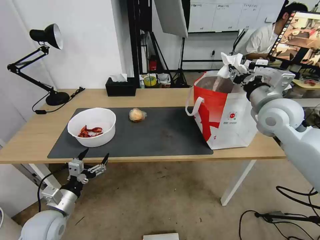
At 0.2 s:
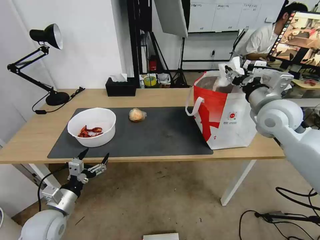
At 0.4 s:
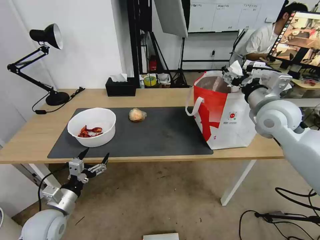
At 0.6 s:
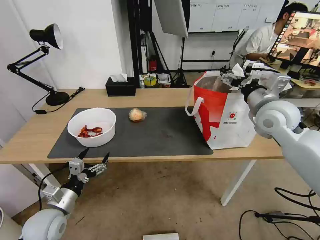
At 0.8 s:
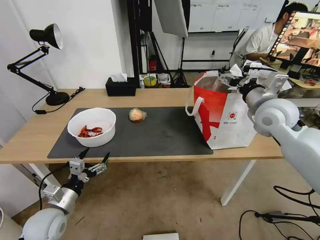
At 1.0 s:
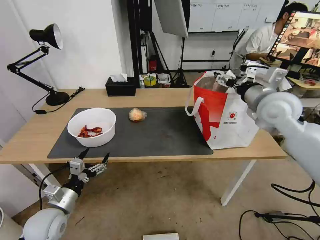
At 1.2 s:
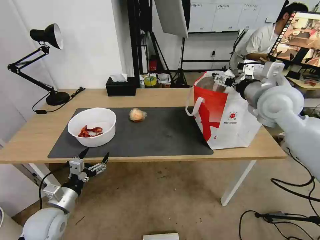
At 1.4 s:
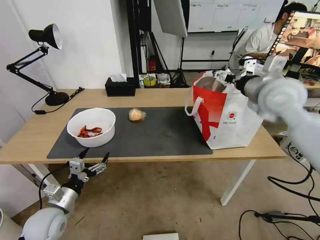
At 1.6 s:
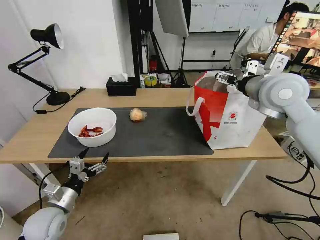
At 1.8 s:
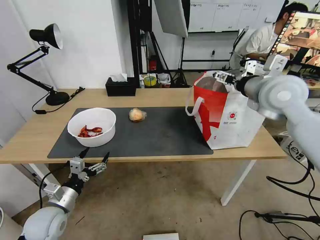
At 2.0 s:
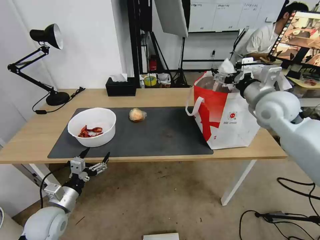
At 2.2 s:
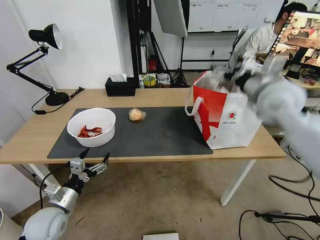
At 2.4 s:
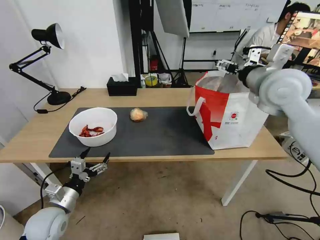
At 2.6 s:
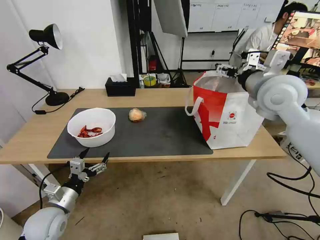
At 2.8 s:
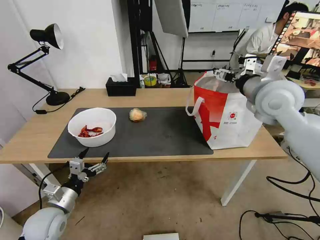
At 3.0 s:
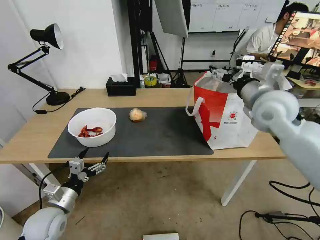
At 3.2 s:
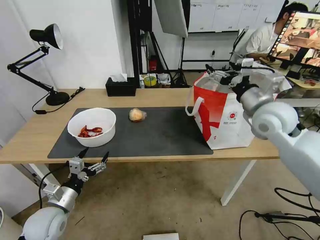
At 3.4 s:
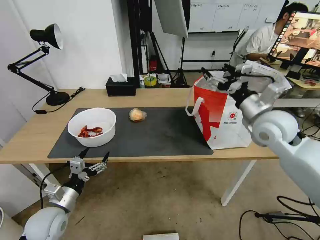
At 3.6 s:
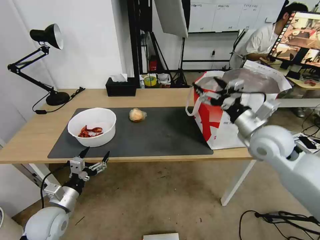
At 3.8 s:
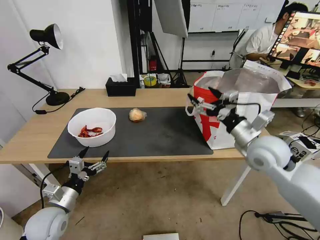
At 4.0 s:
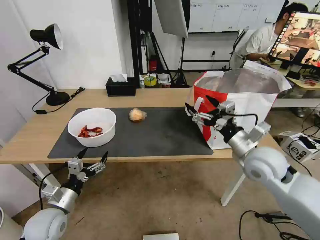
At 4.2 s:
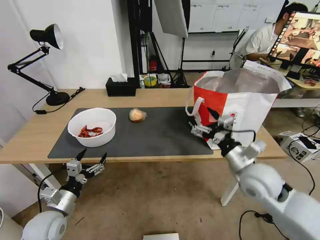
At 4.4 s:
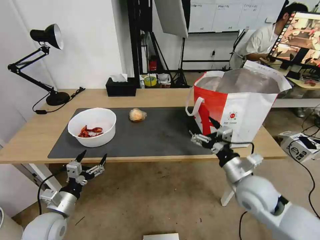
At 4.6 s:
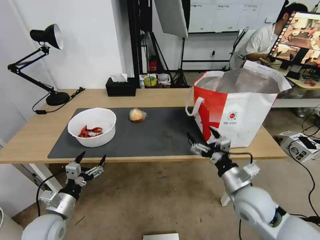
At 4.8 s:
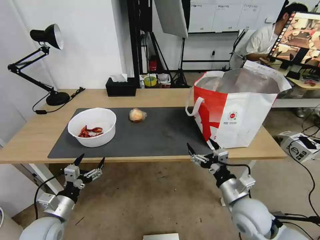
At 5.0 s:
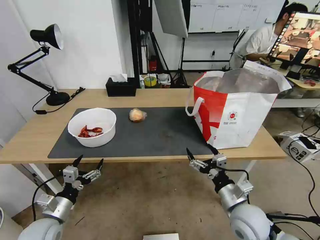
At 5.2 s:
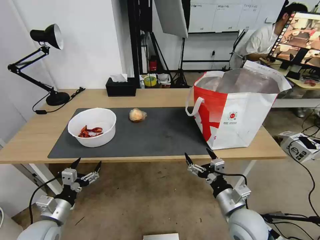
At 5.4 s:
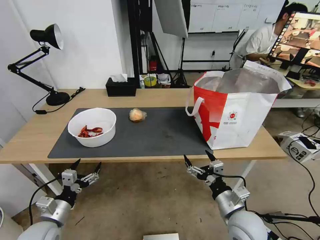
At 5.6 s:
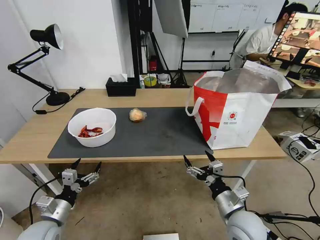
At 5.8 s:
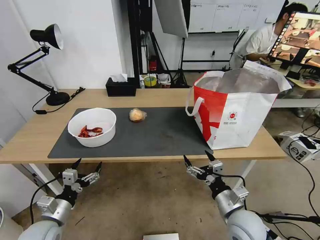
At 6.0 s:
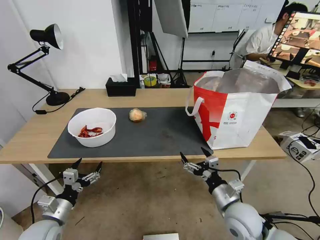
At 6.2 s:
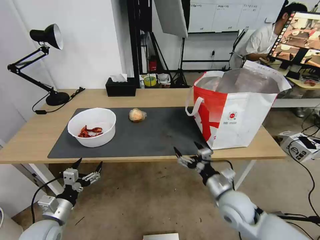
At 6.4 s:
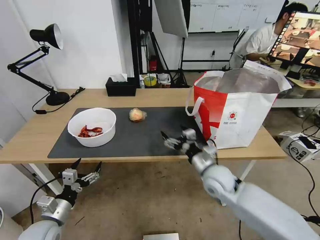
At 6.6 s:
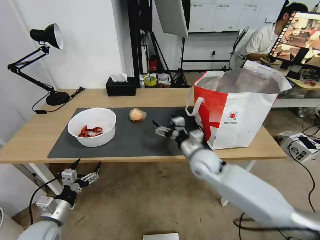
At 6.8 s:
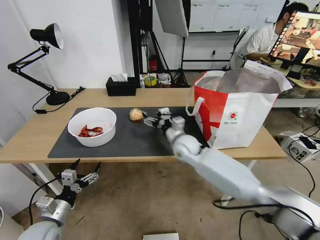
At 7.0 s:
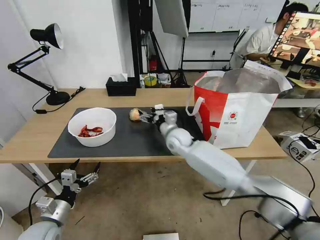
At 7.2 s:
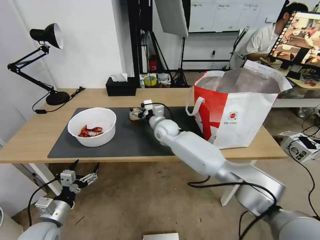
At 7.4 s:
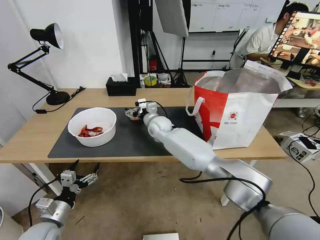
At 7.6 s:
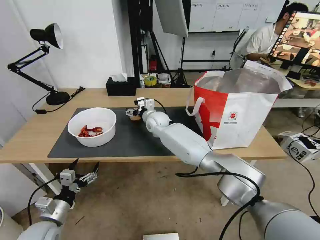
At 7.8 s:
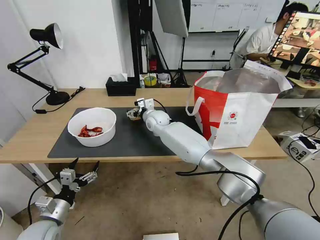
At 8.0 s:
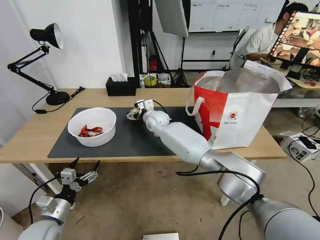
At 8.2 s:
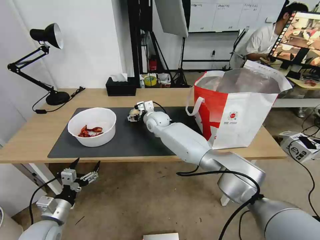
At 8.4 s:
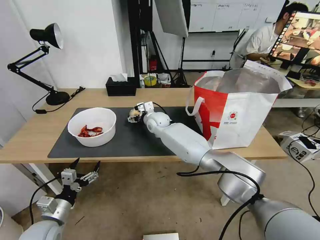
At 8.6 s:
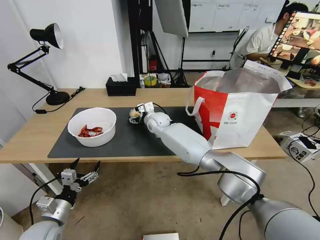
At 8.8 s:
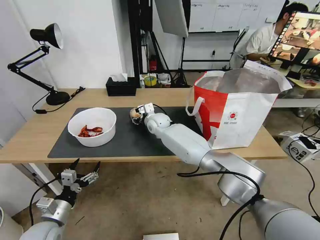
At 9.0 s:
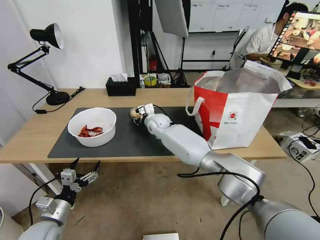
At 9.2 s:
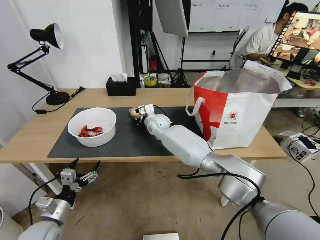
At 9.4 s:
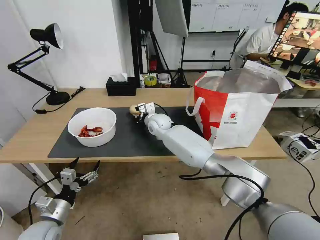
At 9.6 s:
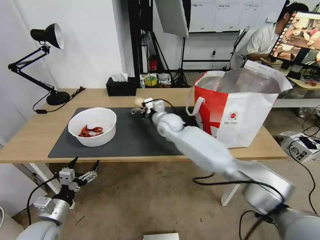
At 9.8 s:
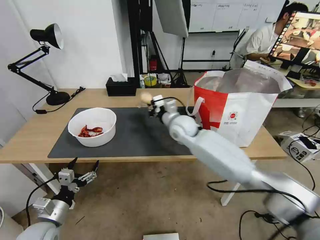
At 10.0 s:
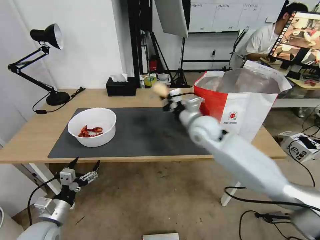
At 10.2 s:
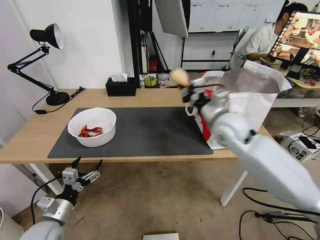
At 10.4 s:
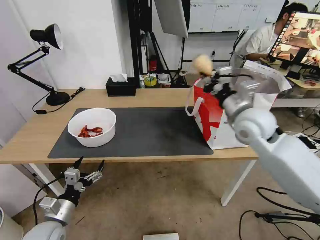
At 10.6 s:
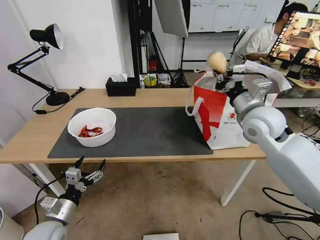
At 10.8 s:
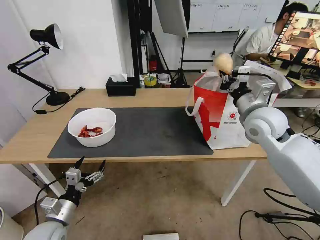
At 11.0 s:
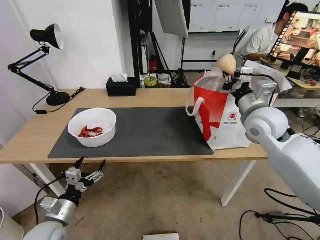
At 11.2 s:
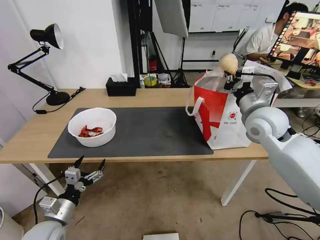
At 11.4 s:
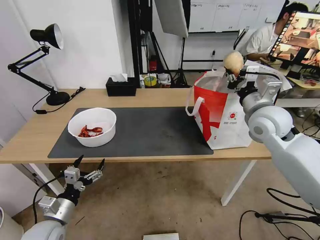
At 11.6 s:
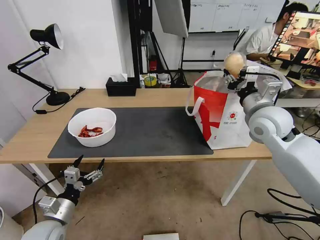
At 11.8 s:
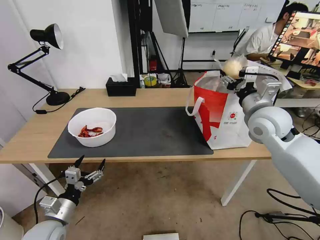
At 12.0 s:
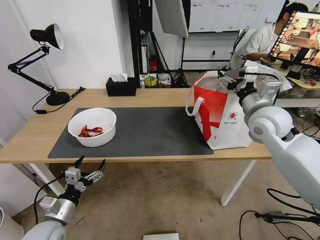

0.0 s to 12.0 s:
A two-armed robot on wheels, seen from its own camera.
Task of the whole recording: Pick up the trash from the table and place it into the takeout bag.
0.0 to 1.6 s: The right gripper goes roughly 5 cm upward, and opens.
1.6 to 3.0 s: The right gripper swings up and down, about 5 cm each way, with 2 reversals.
3.0 to 4.4 s: The right gripper heads downward and backward, covering about 25 cm.
4.4 to 6.0 s: The right gripper is displaced downward and backward by some 10 cm.
6.0 to 7.6 s: The right gripper heads forward and to the left, covering approximately 40 cm.
7.6 to 9.0 s: The right gripper closes up.
9.0 to 10.4 s: The right gripper moves to the right, backward and upward, approximately 35 cm, and closes up.
10.4 to 12.0 s: The right gripper opens.

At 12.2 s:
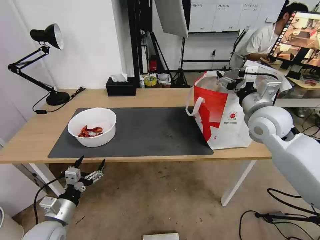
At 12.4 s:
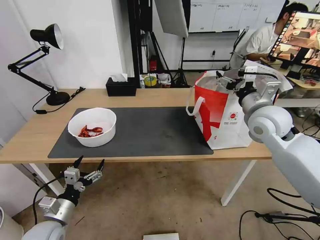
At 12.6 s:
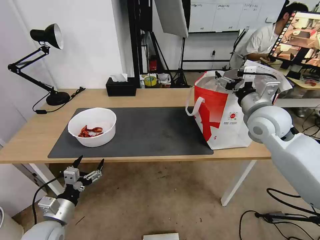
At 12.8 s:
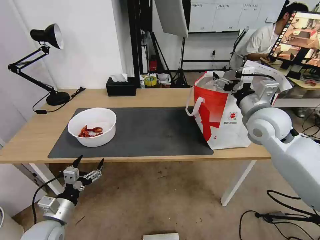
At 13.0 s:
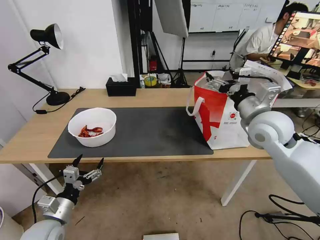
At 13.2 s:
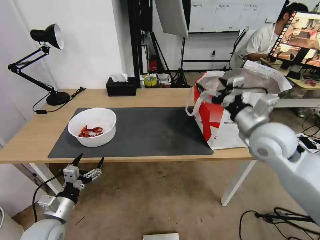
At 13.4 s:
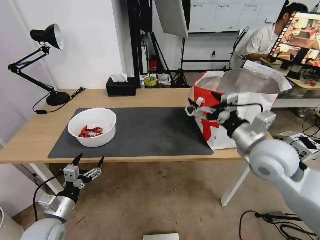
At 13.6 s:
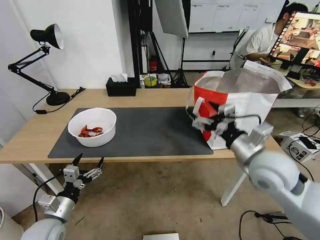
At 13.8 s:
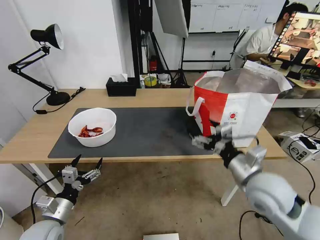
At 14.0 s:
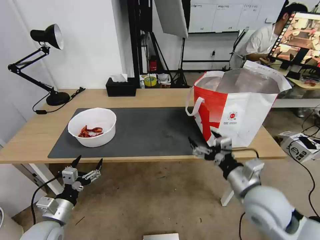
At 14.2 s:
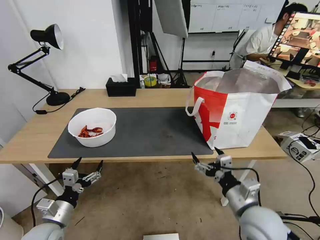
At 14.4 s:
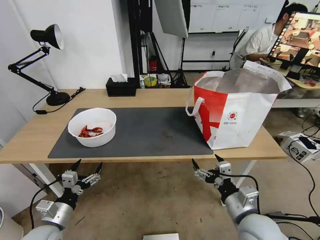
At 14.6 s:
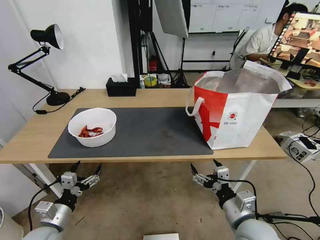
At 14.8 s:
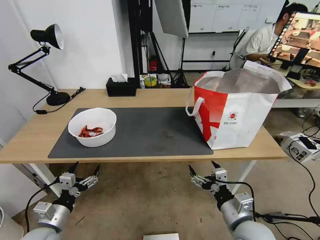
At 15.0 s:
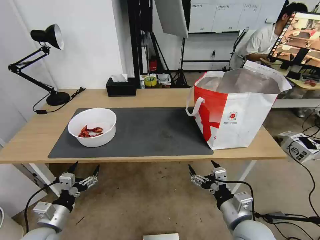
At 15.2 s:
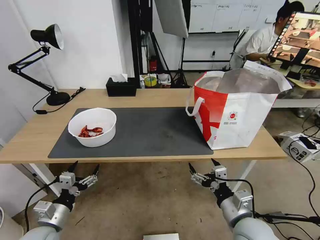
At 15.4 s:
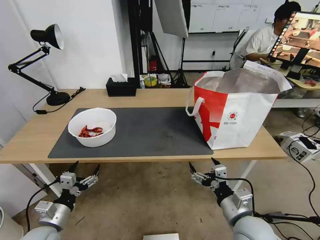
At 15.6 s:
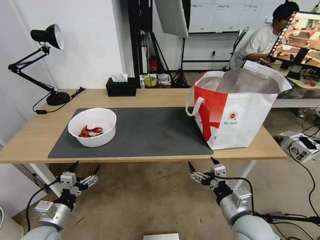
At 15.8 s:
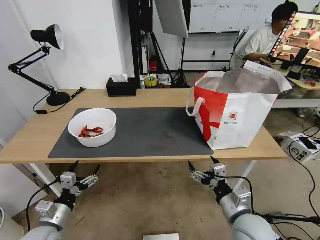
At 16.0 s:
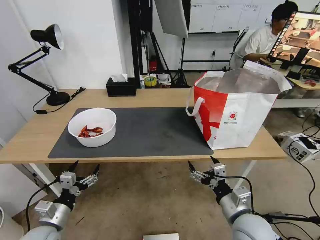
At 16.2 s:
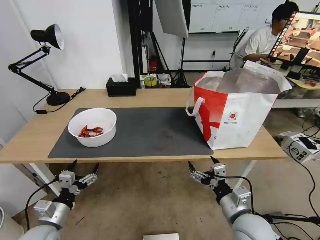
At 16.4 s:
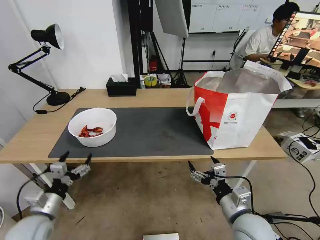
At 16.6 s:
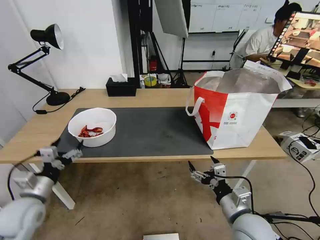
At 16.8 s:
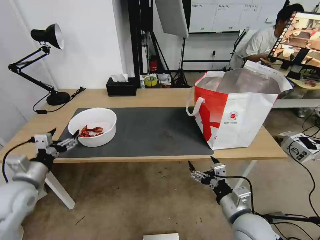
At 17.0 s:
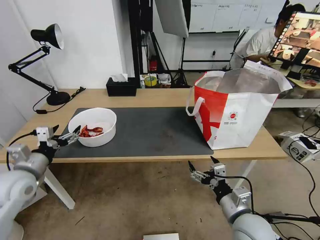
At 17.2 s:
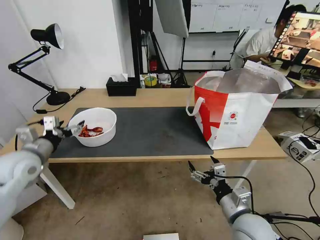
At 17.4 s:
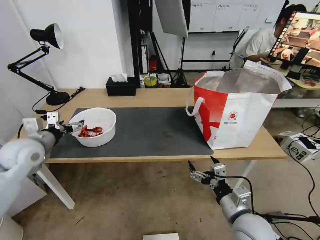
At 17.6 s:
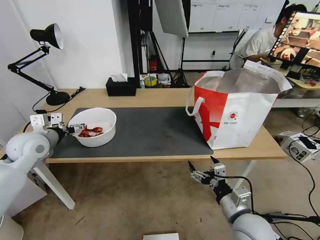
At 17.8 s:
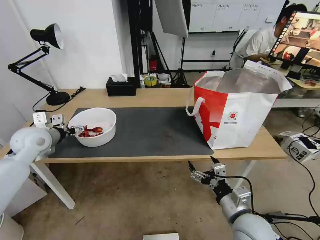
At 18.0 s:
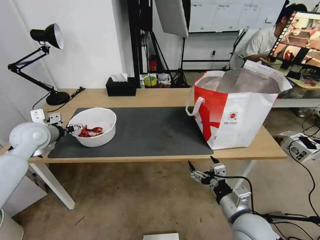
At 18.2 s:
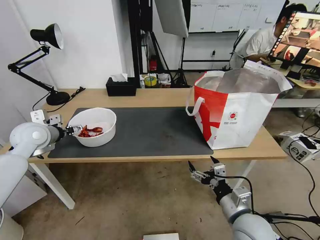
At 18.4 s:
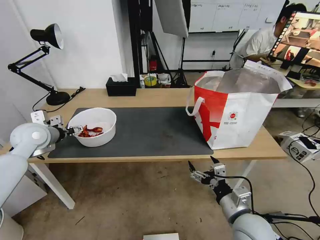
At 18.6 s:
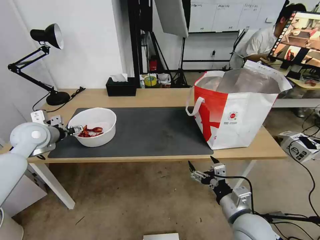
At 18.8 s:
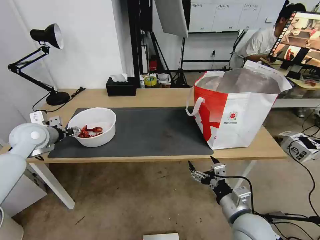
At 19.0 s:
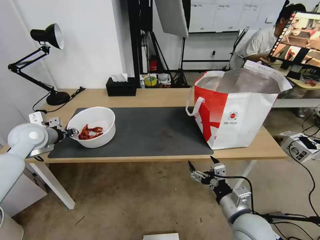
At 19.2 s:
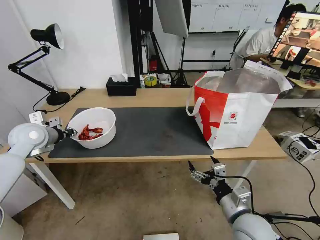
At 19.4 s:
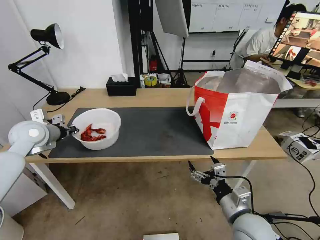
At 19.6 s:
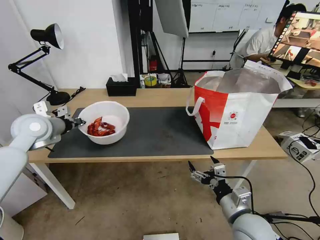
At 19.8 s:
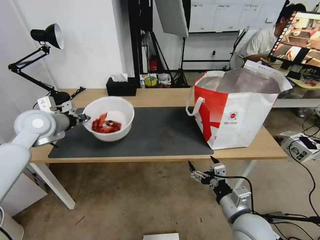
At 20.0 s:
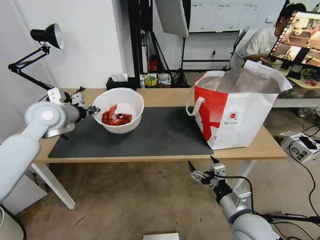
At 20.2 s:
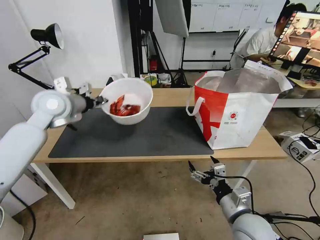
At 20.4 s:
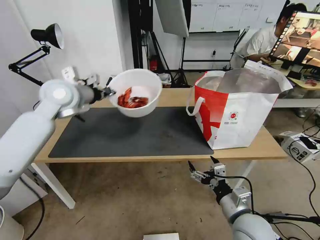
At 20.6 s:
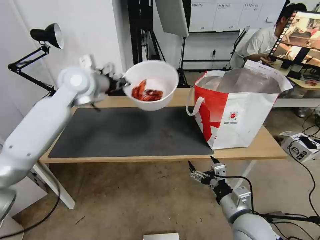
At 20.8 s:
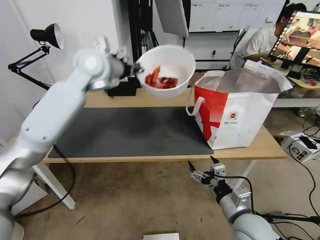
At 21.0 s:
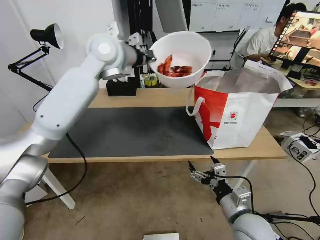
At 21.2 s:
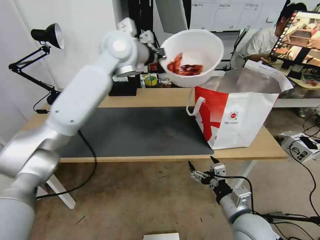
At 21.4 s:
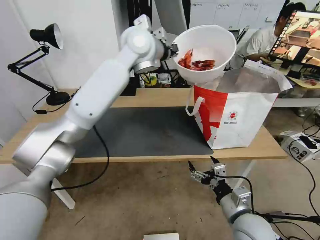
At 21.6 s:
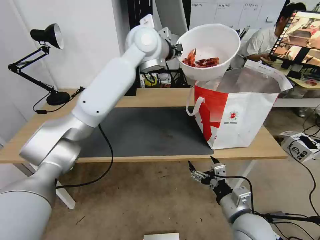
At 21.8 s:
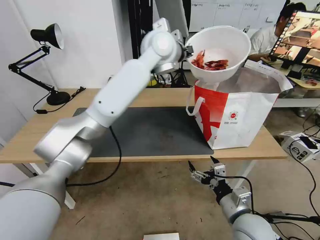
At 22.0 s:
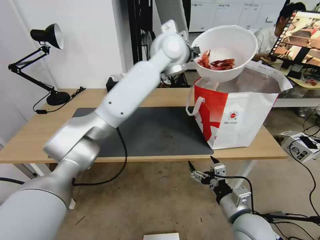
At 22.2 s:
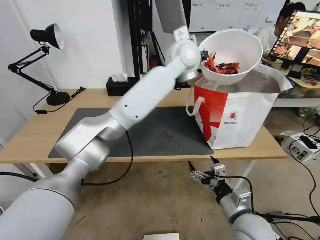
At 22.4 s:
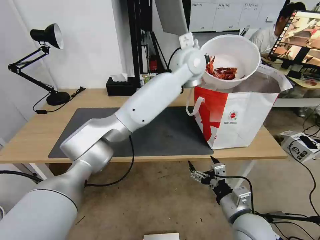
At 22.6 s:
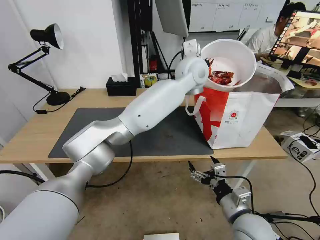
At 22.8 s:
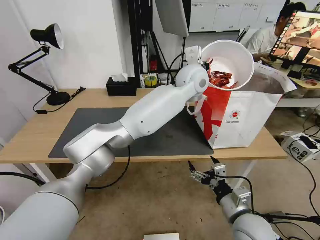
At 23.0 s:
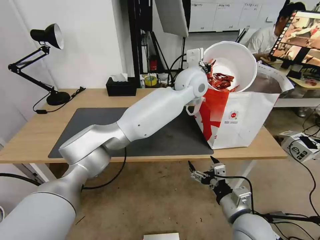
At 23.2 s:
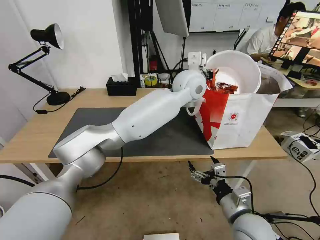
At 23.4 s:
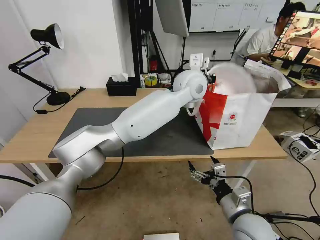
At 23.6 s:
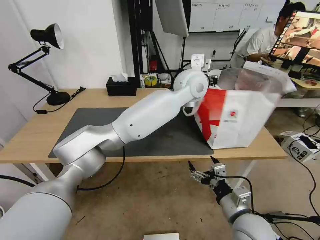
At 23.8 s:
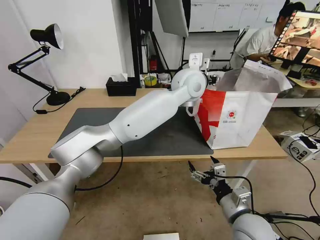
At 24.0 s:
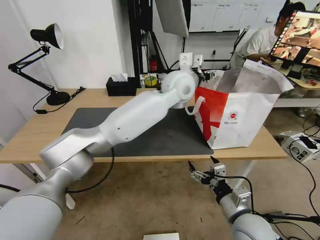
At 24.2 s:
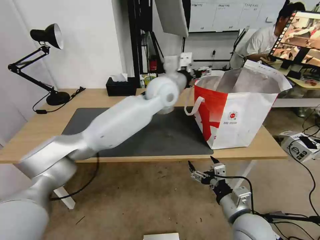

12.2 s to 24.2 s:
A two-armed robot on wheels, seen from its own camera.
Task of the whole recording: Pick up the trash from the table and place it into the takeout bag.
12.2 to 13.8 s: The right gripper is displaced backward and downward by about 15 cm.
13.8 to 15.2 s: The right gripper goes some 15 cm downward and backward.
15.2 to 16.6 s: The left gripper shifts approximately 10 cm upward and forward.
16.6 to 18.2 s: The left gripper travels forward and upward by roughly 20 cm.
18.2 to 19.8 s: The left gripper shifts by approximately 5 cm, and closes.
19.8 to 21.2 s: The left gripper heads to the right and upward, covering roughly 30 cm.
21.2 to 22.6 s: The left gripper moves to the right, roughly 20 cm.
22.6 to 24.2 s: The left gripper heads to the left, covering about 10 cm, and opens.
